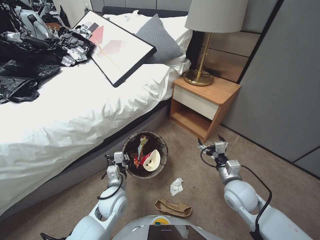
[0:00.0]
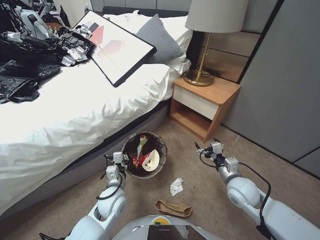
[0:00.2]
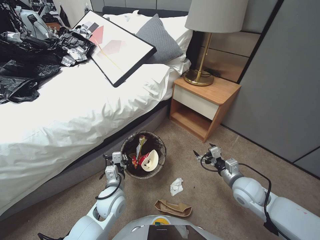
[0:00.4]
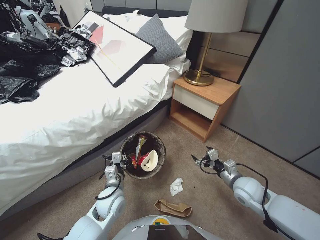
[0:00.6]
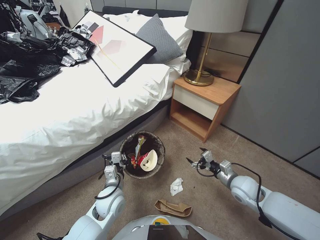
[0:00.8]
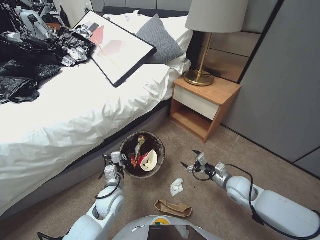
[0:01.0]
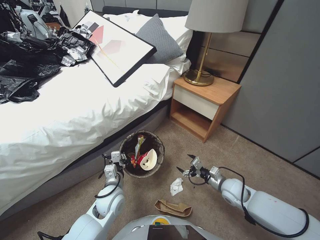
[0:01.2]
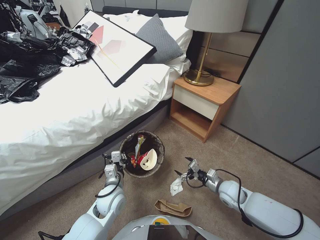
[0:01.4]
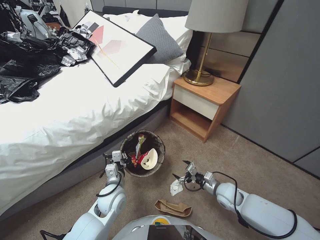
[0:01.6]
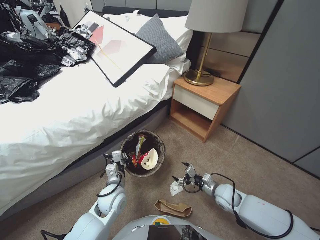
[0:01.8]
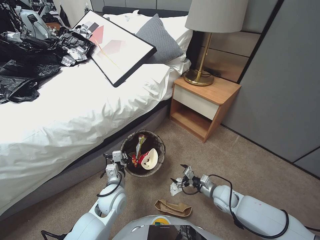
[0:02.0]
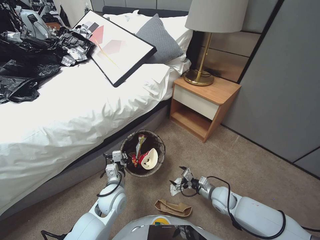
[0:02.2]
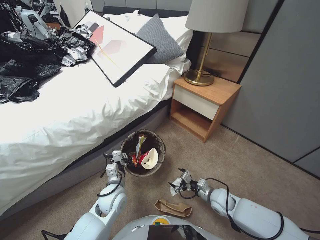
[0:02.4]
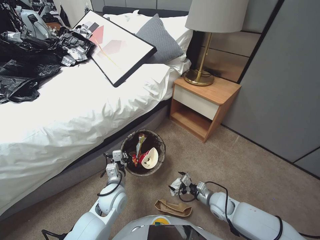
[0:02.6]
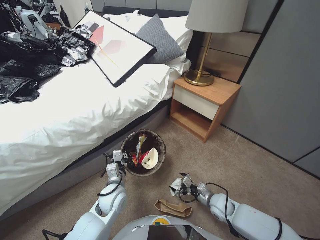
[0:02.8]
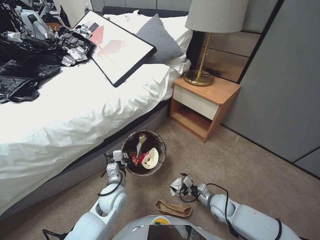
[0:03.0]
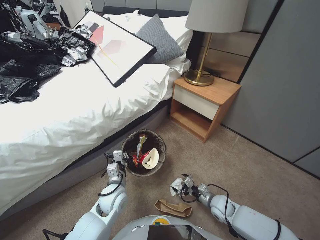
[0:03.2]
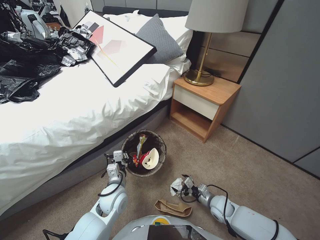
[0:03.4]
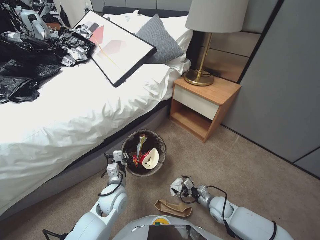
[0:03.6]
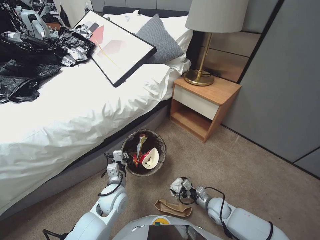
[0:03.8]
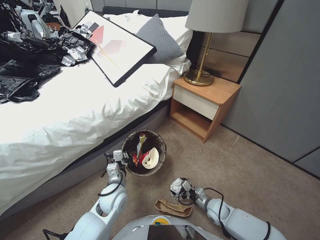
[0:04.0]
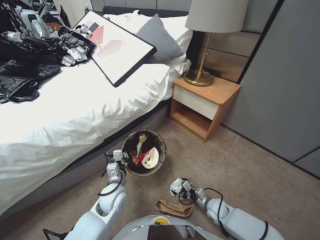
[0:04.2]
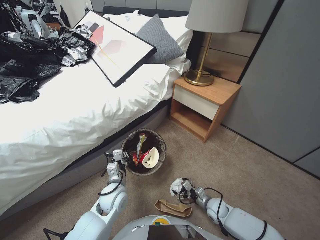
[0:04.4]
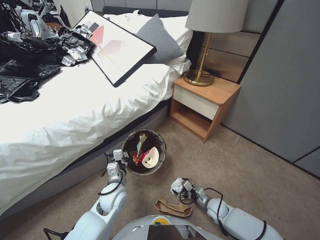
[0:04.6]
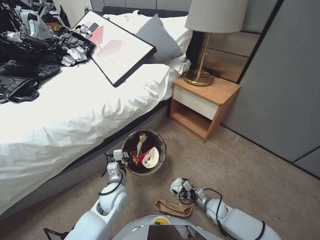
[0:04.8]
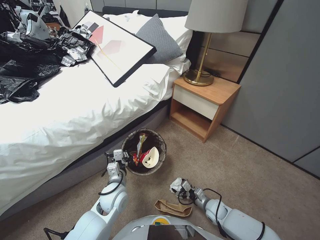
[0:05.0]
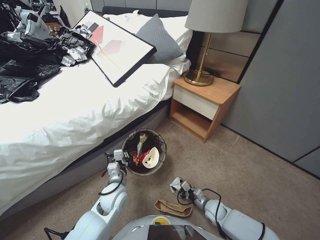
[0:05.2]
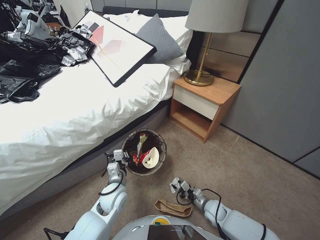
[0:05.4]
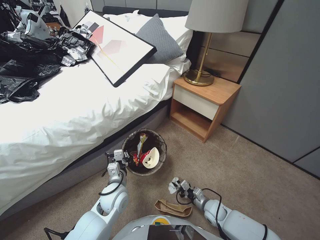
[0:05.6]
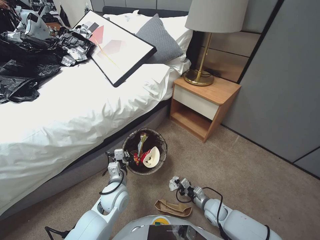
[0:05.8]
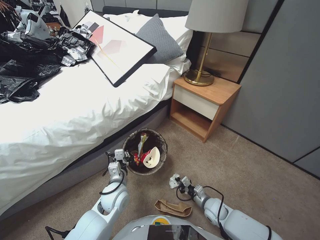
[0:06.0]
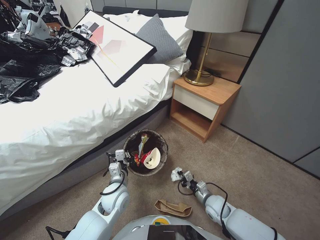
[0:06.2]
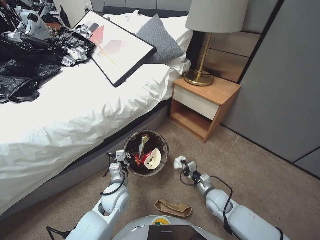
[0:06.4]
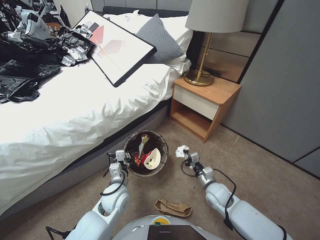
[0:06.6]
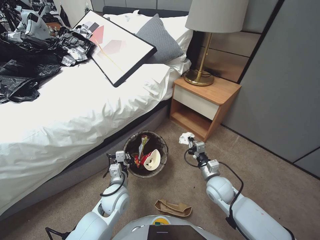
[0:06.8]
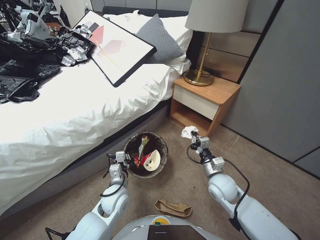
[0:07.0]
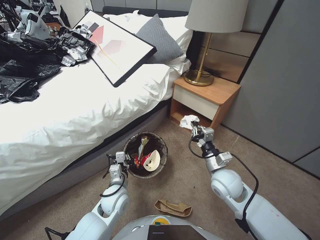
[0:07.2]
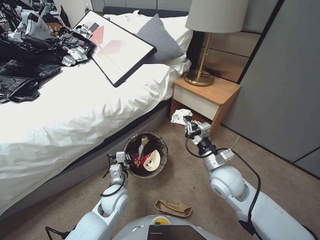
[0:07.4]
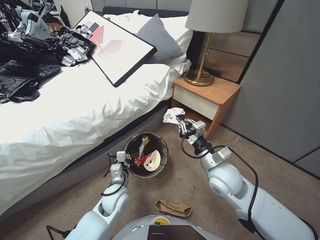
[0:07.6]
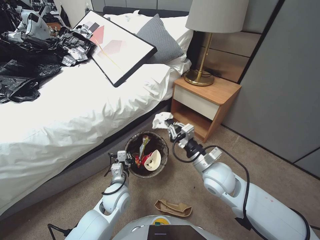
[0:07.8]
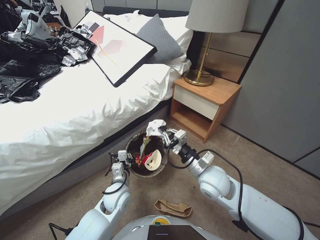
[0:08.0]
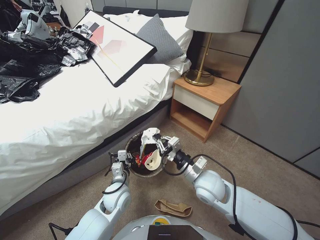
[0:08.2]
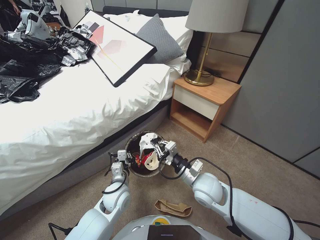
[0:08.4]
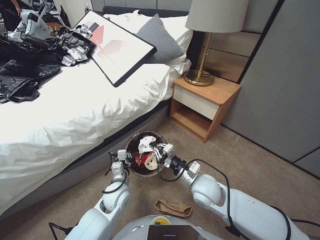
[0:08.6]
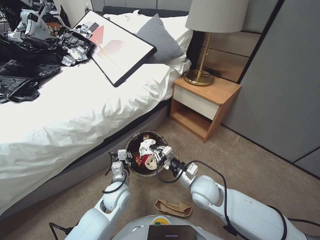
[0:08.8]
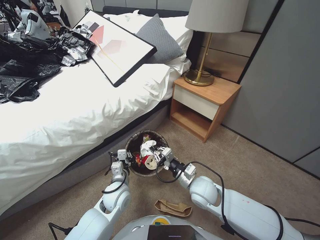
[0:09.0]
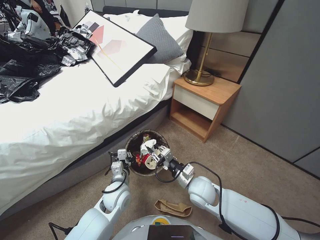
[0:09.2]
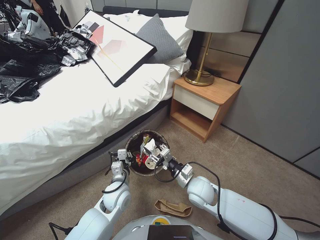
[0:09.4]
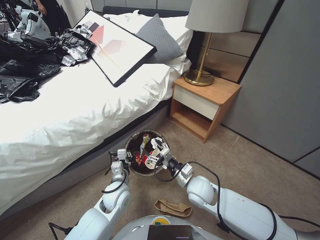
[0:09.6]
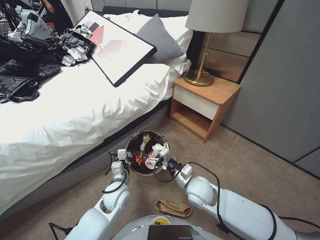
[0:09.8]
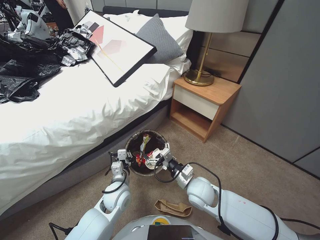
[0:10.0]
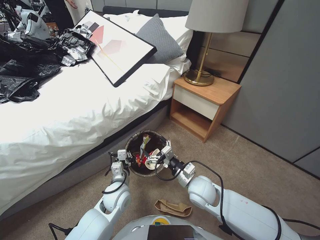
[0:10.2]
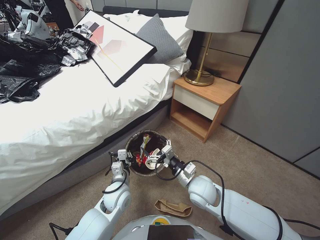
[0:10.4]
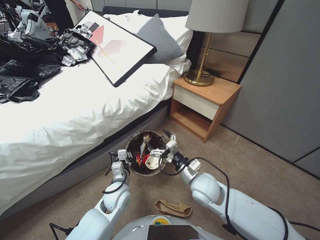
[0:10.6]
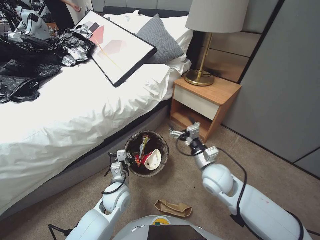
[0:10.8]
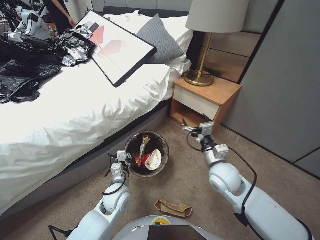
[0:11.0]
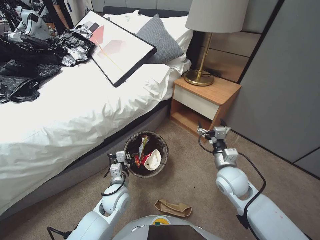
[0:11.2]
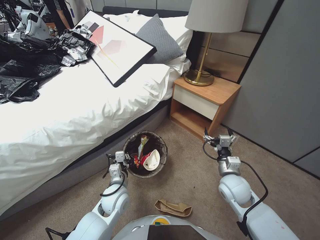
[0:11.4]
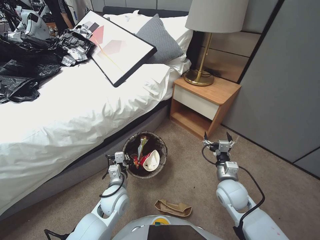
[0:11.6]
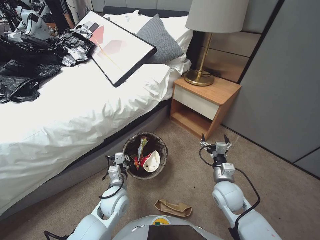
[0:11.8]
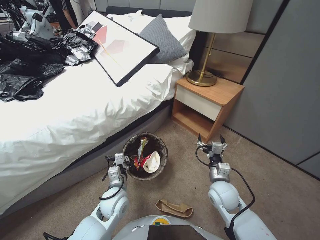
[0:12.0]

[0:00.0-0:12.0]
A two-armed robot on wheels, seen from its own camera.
Task of the whole recording: Pick up the trash bin, then pick up the garbage from the floor and place it into the trash bin.
0:00.0 to 0:01.6: The right gripper heads to the right, downward and forward, covering approximately 10 cm.
0:01.6 to 0:03.0: The right gripper moves downward, about 5 cm.
0:03.0 to 0:04.4: The right gripper is displaced downward by about 5 cm.
0:04.4 to 0:06.0: The right gripper closes up.
0:06.0 to 0:07.6: The right gripper moves upward, roughly 30 cm.
0:07.6 to 0:09.0: The right gripper is displaced downward by approximately 10 cm.
0:09.0 to 0:10.4: The right gripper opens up.
0:10.4 to 0:12.0: The right gripper heads to the right, covering about 10 cm.

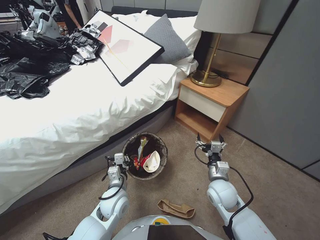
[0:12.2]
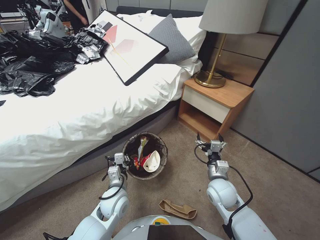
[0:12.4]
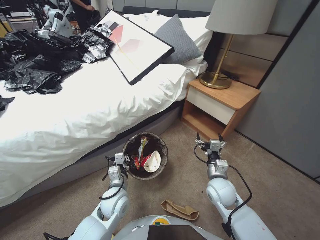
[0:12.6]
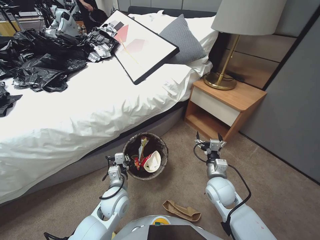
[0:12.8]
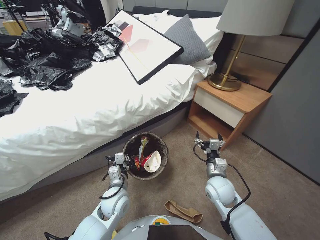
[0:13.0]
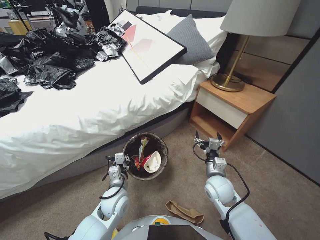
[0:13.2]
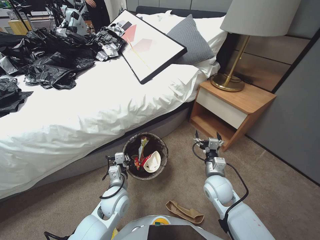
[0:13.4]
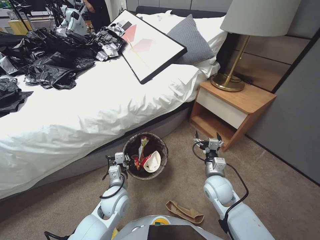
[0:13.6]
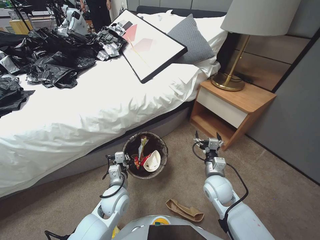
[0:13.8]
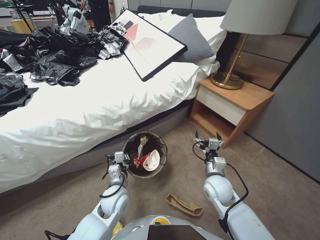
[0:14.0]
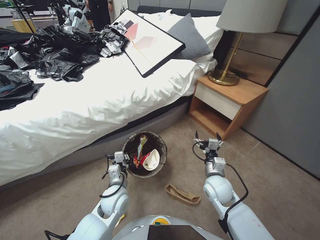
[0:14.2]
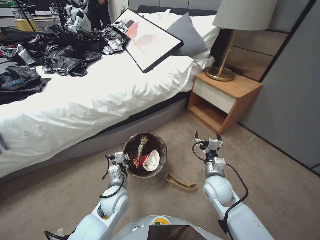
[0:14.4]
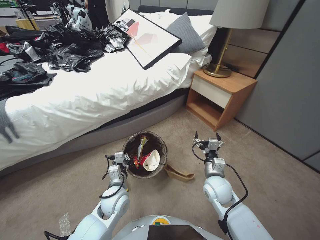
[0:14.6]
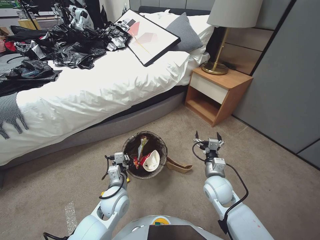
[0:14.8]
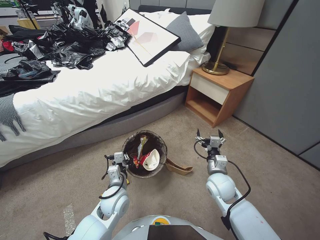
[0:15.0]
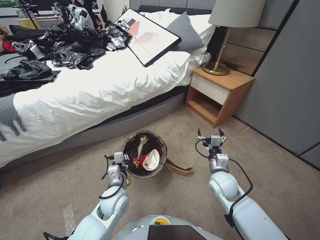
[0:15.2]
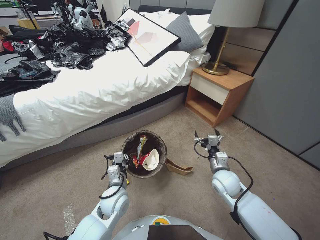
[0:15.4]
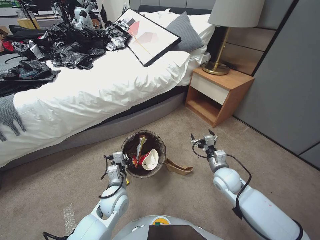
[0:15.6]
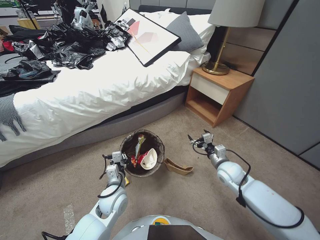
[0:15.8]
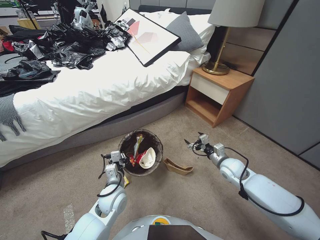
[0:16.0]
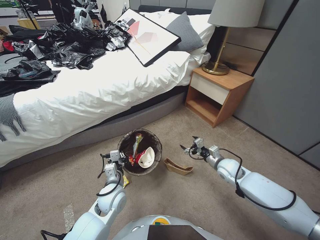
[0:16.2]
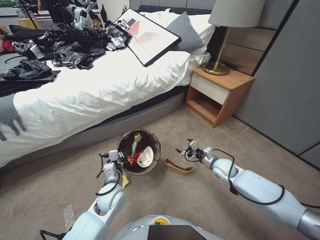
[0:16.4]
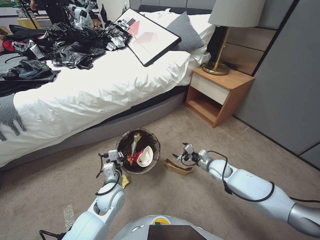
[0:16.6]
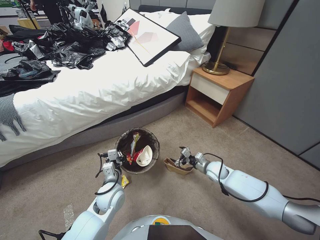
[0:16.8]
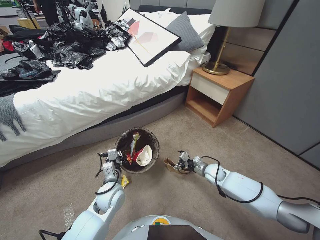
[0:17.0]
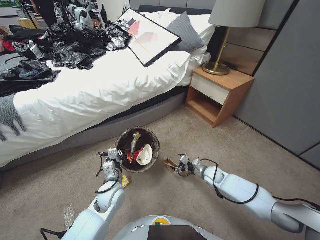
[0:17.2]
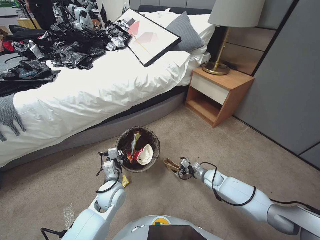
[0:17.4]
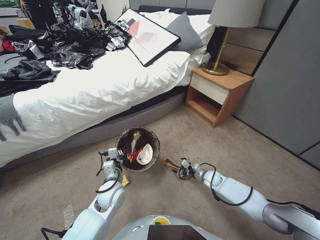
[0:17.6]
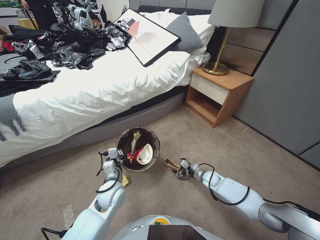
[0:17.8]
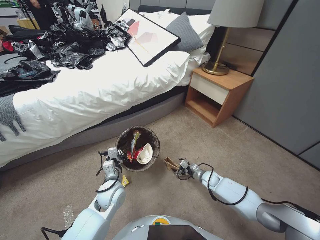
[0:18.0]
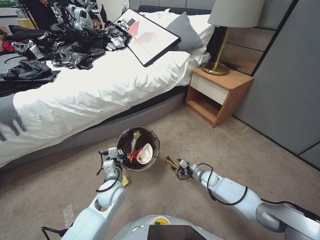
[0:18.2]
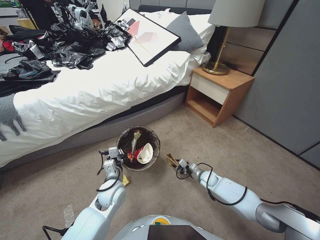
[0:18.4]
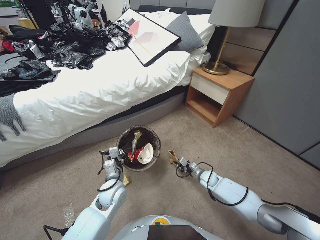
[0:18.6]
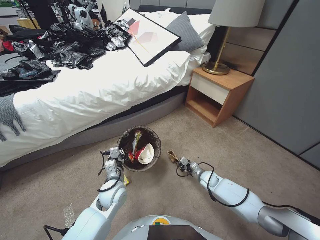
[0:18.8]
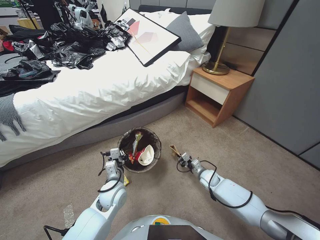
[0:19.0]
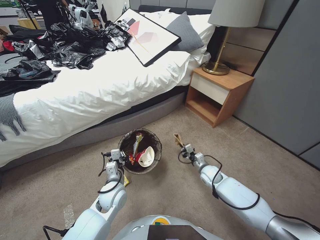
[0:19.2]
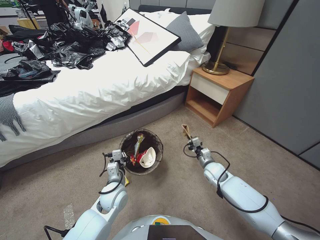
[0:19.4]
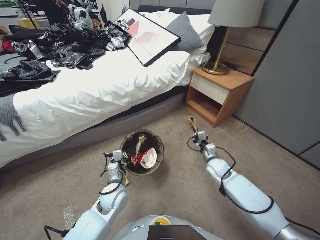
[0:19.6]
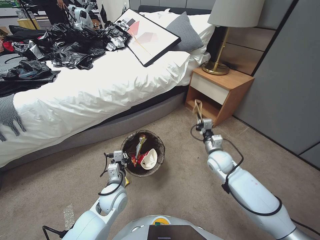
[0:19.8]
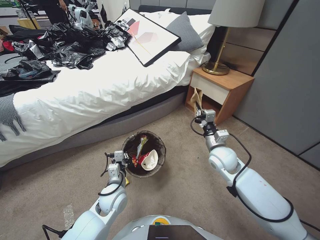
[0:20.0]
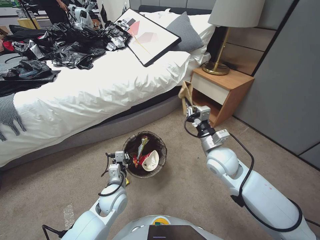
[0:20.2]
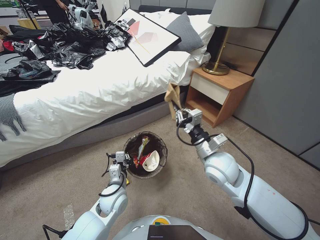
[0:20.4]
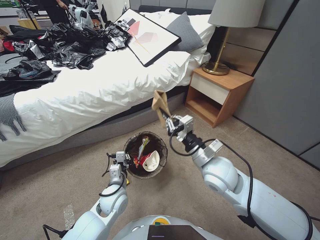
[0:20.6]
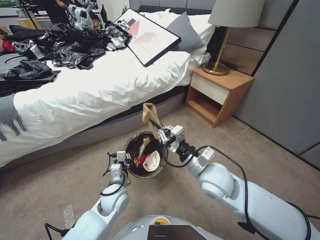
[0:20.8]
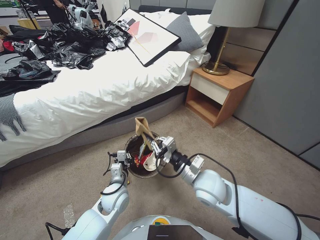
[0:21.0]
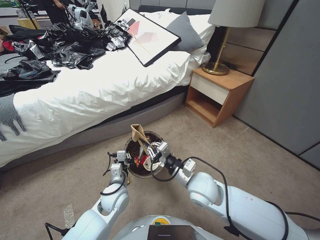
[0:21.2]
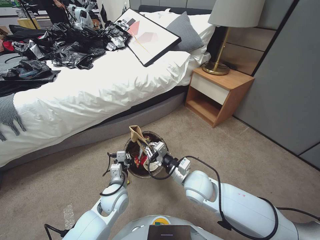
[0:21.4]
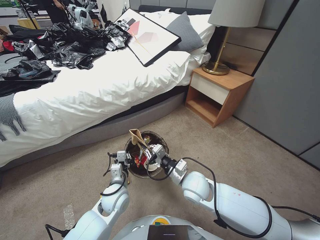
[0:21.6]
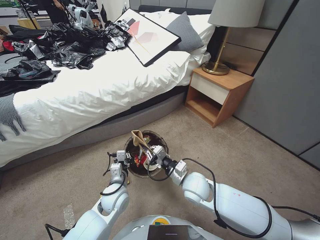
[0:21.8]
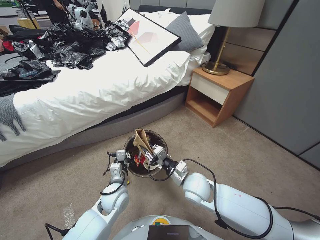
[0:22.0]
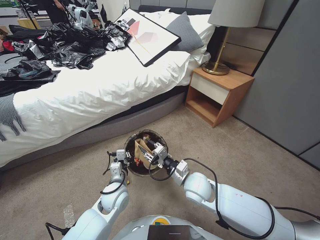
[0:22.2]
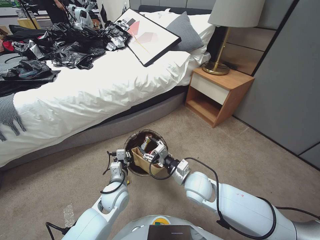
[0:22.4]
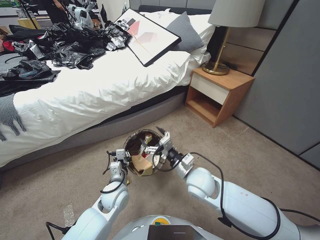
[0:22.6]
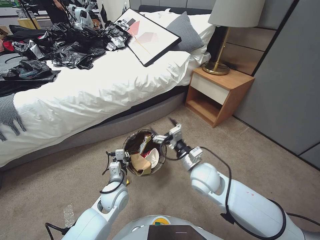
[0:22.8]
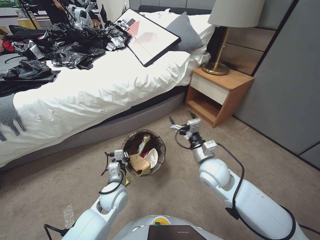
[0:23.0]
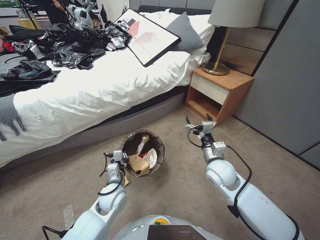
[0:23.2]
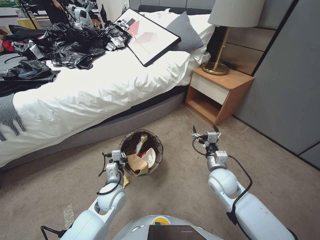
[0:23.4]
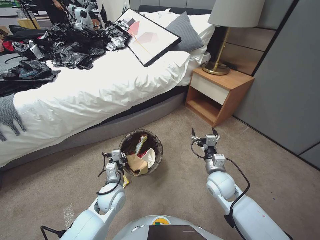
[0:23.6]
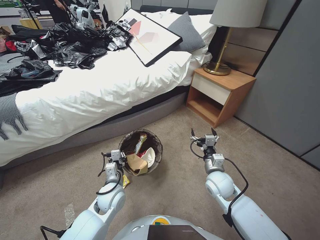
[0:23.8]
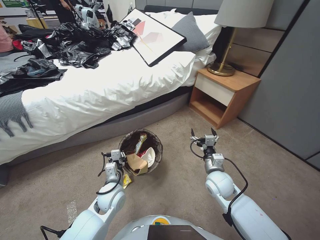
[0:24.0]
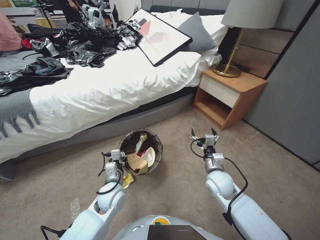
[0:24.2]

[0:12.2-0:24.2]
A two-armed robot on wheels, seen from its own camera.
Task of the whole recording: Pick up the trash bin, then pick up the garbage from the floor and place it into the trash bin.
0:15.2 to 0:16.6: The right gripper heads forward, downward and to the right, covering roughly 15 cm.
0:16.6 to 0:18.2: The right gripper travels downward by approximately 15 cm.
0:18.2 to 0:19.8: The right gripper moves upward, approximately 10 cm, and closes.
0:19.8 to 0:21.2: The right gripper is displaced upward, backward and to the left by approximately 25 cm.
0:21.2 to 0:22.6: The right gripper travels downward by approximately 10 cm, and opens up.
0:22.6 to 0:24.2: The right gripper is displaced to the right by about 10 cm.
